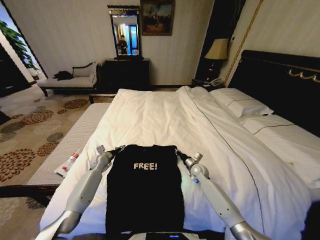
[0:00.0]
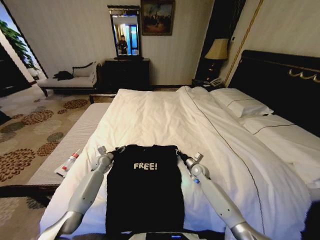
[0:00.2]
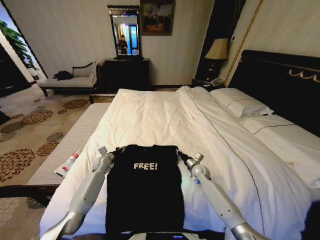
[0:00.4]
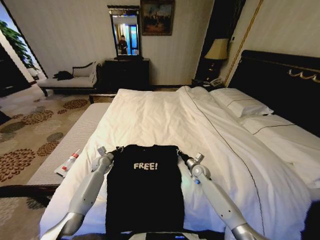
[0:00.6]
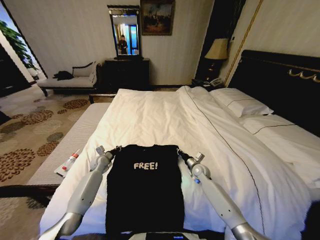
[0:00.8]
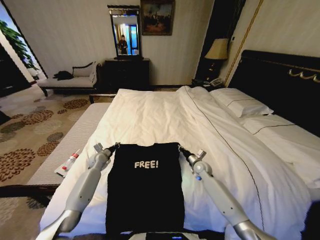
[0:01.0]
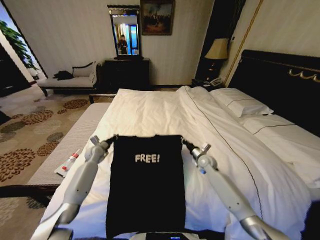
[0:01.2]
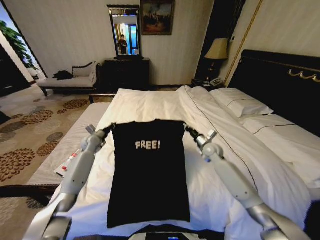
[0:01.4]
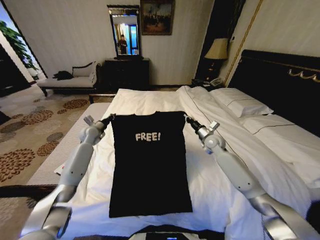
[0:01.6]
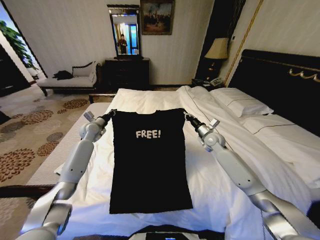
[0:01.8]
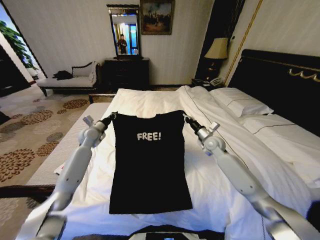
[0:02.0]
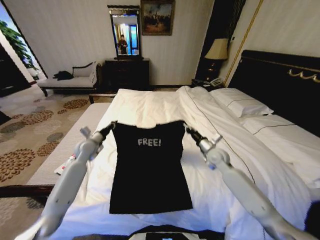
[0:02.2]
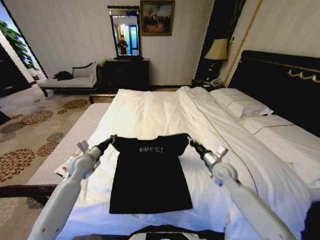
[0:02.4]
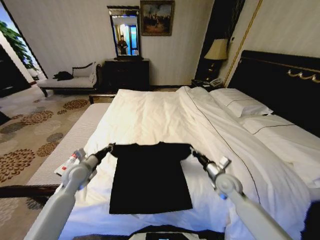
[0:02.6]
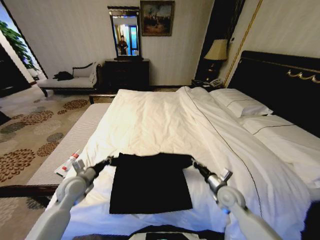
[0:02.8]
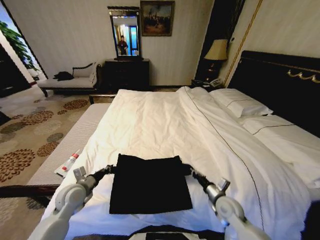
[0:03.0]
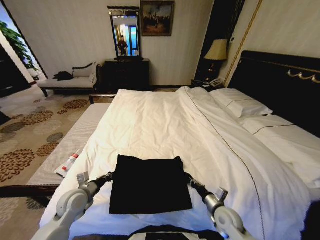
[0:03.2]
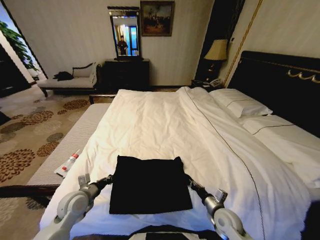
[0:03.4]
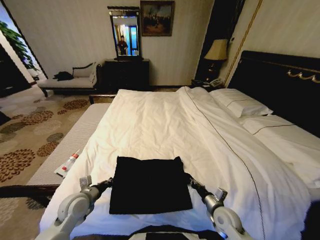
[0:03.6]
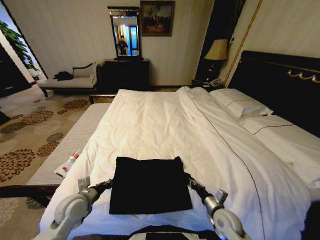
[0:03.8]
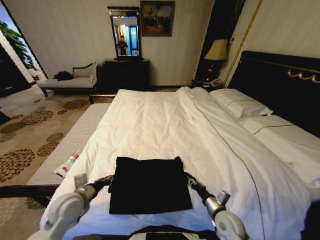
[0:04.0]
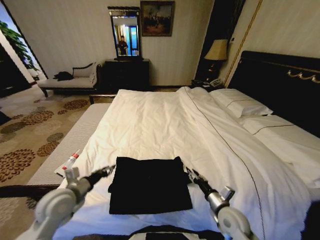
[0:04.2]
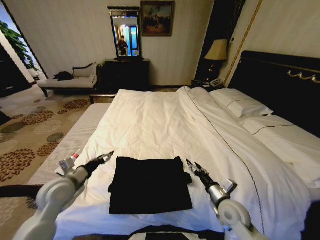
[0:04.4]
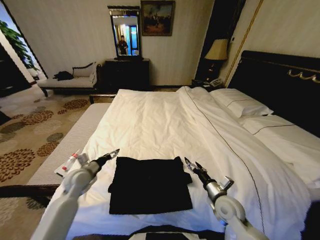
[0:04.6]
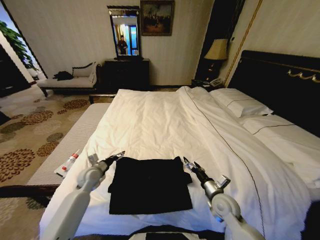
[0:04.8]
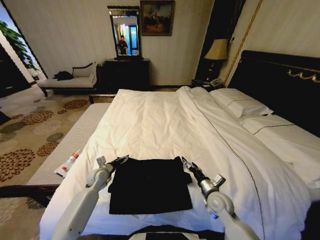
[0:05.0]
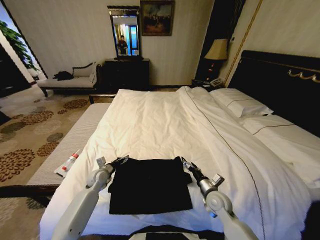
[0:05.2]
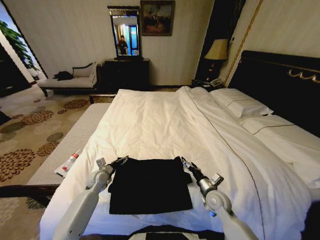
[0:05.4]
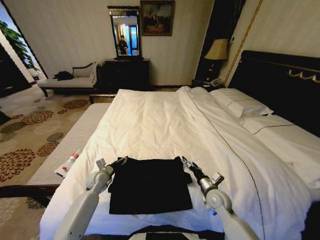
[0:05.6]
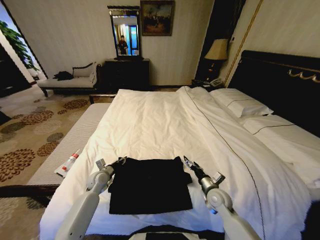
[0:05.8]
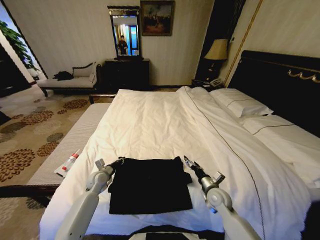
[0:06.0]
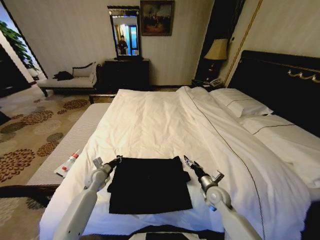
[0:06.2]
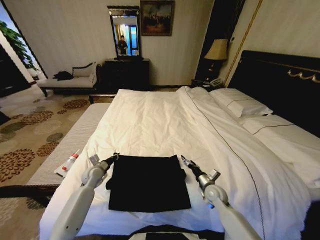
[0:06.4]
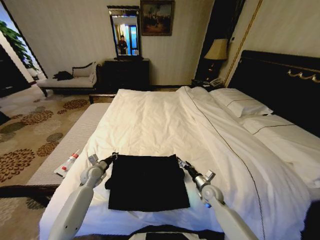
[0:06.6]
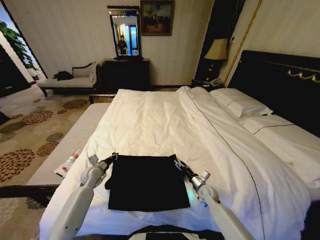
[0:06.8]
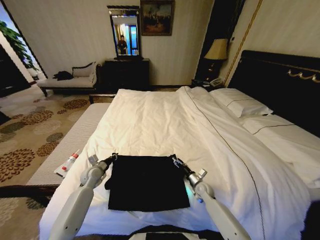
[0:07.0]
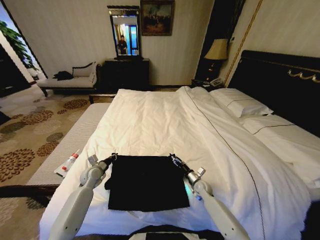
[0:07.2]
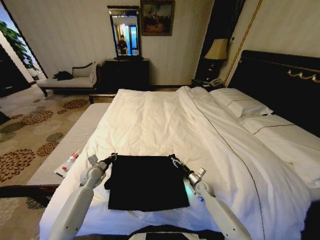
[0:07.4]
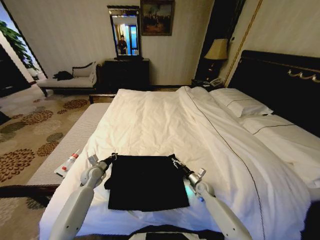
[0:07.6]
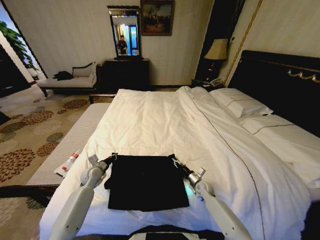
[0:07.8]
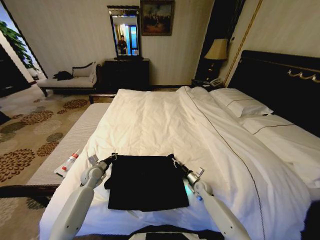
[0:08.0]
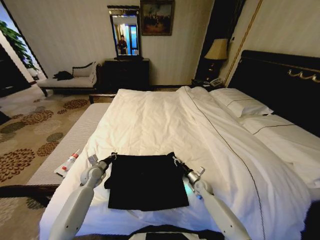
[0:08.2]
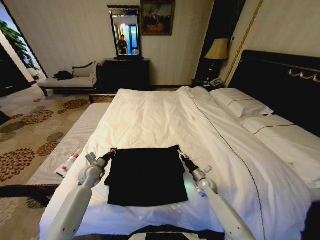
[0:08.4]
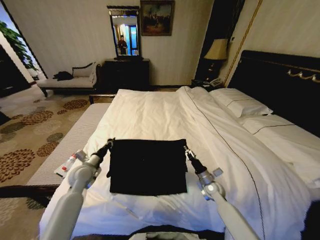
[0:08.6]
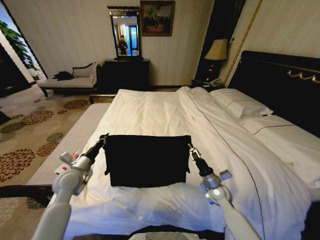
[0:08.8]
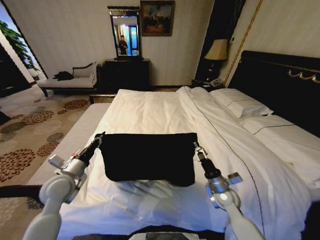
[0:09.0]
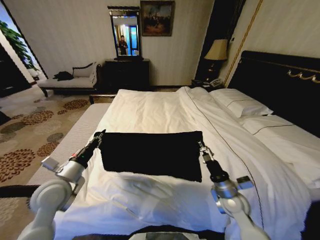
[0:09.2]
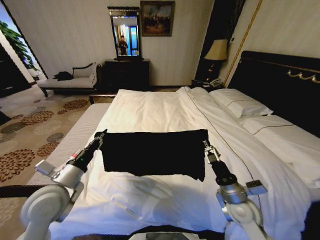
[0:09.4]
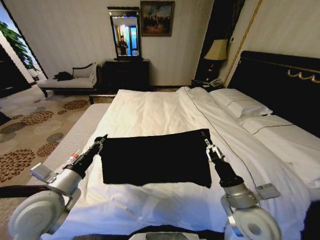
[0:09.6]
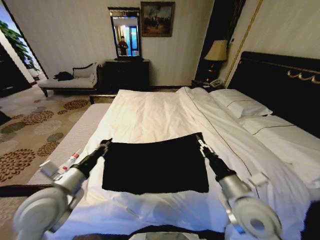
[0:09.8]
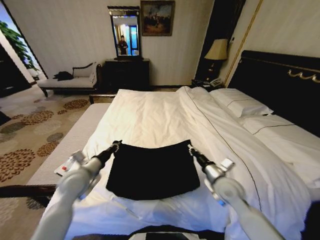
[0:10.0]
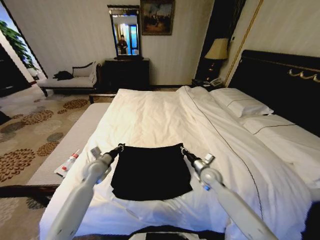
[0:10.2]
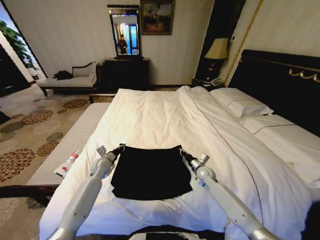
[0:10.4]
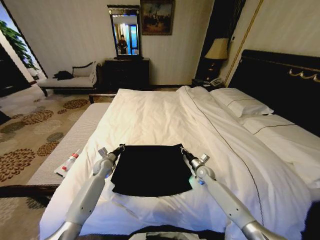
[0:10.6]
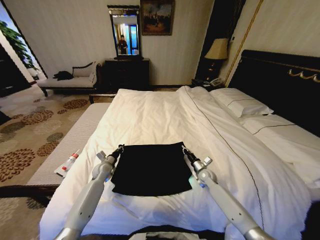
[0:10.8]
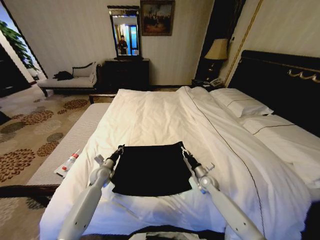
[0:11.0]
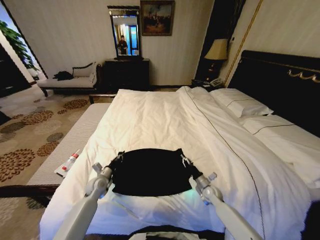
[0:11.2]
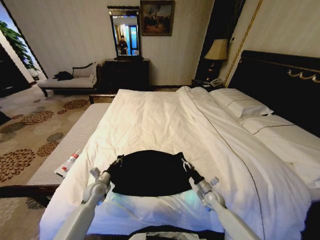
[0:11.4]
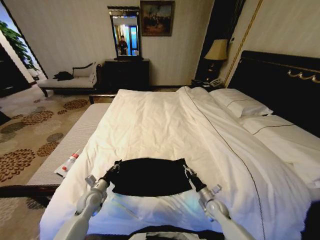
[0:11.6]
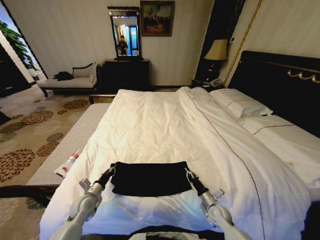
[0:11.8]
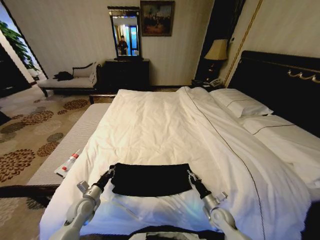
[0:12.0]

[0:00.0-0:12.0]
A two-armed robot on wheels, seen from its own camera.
Task of the whole recording: Fold the clothes on the bed.
0:00.0 to 0:01.6: The right gripper is displaced upward by about 15 cm, while the left gripper shifts some 15 cm upward and forward, and closes its fingers.
0:01.6 to 0:03.0: The right gripper goes roughly 30 cm backward and downward. Meanwhile the left gripper goes some 25 cm backward.
0:03.0 to 0:04.4: The left gripper moves upward, some 10 cm, and opens. Meanwhile the right gripper moves about 5 cm, and opens up.
0:04.4 to 0:06.0: The right gripper heads forward, covering some 5 cm; the left gripper heads downward and forward, covering some 20 cm, and closes its fingers.
0:06.0 to 0:07.6: The right gripper moves downward and forward, approximately 15 cm, and closes its fingers.
0:07.6 to 0:09.0: Both grippers move upward and backward, roughly 20 cm. The right gripper closes its fingers.
0:09.0 to 0:10.4: Both grippers move forward and downward, roughly 15 cm.
0:10.4 to 0:12.0: The right gripper travels backward and downward by approximately 20 cm. Meanwhile the left gripper is displaced backward by about 20 cm.

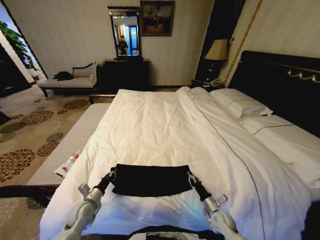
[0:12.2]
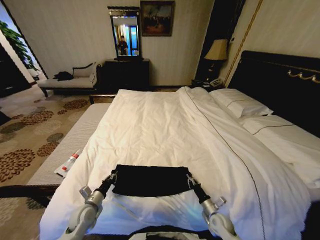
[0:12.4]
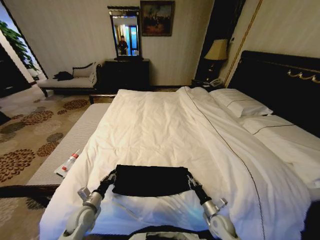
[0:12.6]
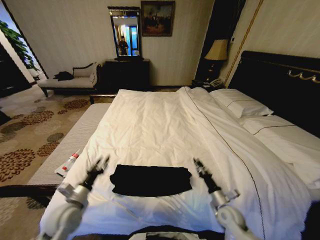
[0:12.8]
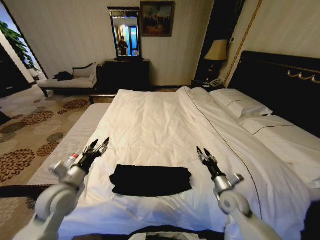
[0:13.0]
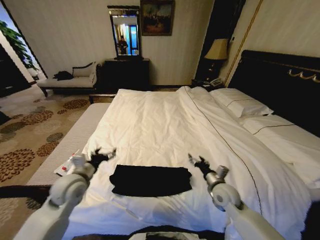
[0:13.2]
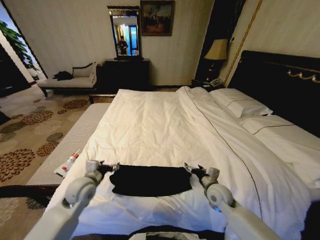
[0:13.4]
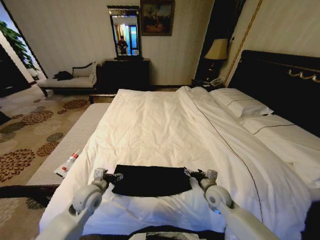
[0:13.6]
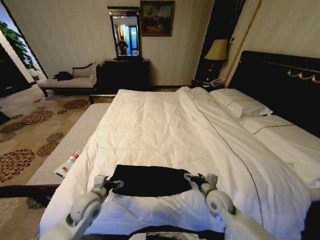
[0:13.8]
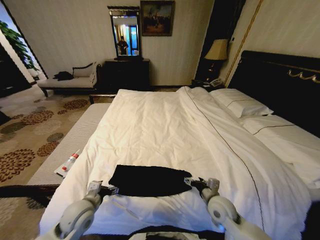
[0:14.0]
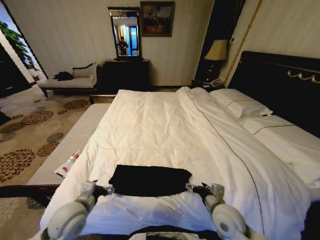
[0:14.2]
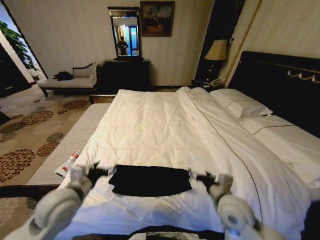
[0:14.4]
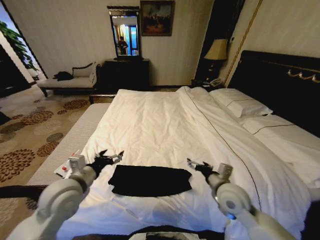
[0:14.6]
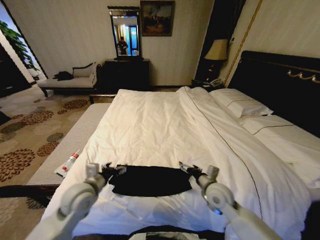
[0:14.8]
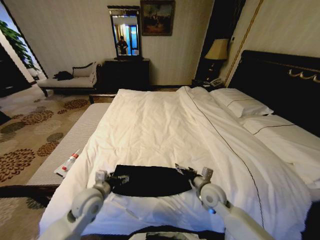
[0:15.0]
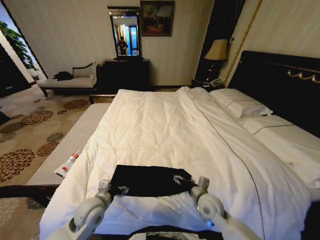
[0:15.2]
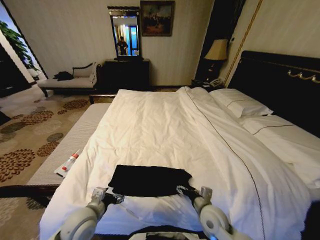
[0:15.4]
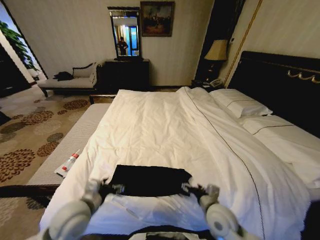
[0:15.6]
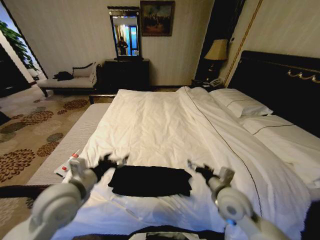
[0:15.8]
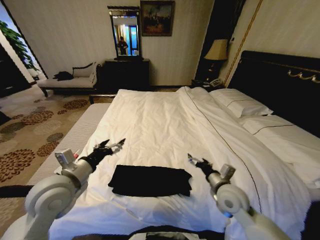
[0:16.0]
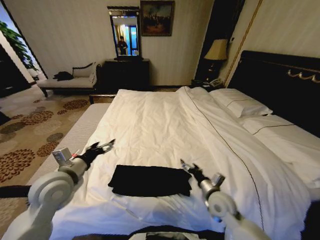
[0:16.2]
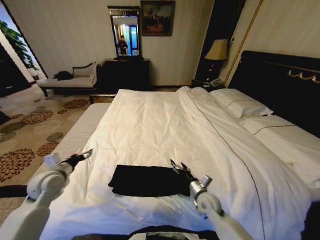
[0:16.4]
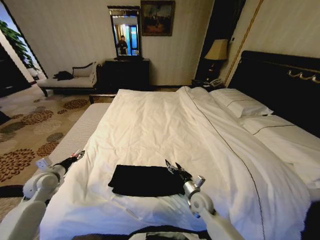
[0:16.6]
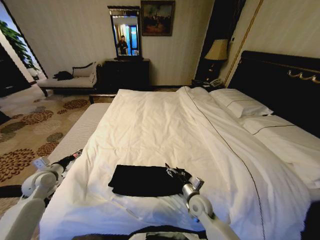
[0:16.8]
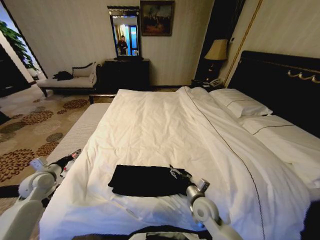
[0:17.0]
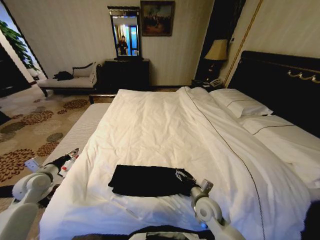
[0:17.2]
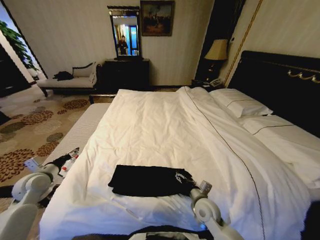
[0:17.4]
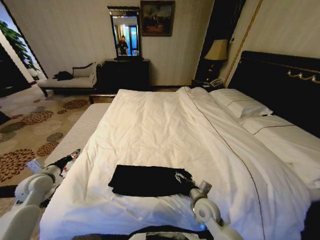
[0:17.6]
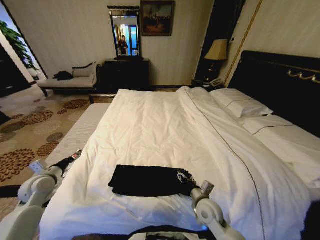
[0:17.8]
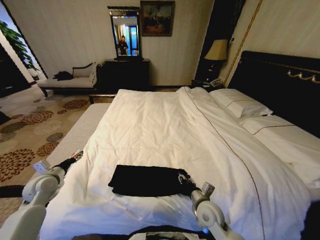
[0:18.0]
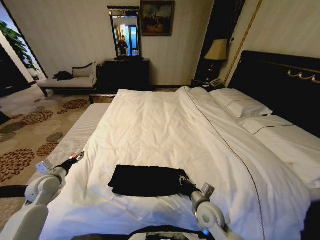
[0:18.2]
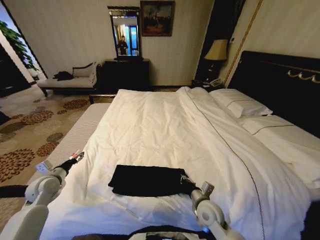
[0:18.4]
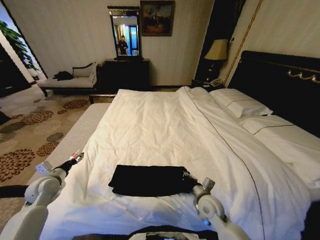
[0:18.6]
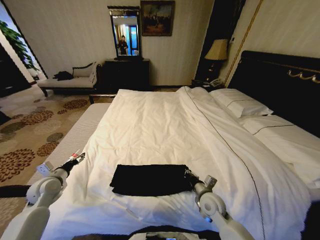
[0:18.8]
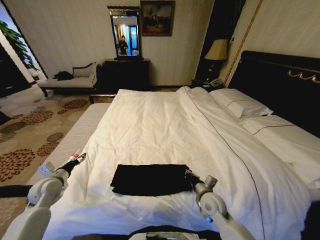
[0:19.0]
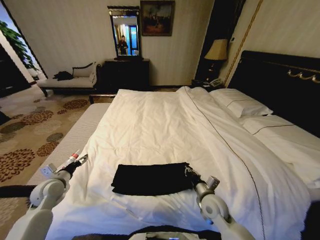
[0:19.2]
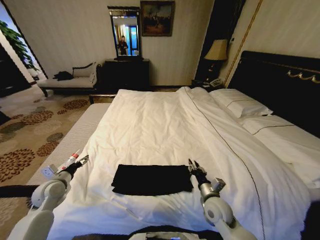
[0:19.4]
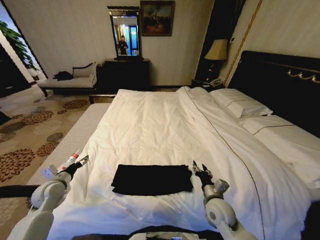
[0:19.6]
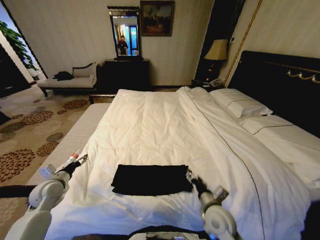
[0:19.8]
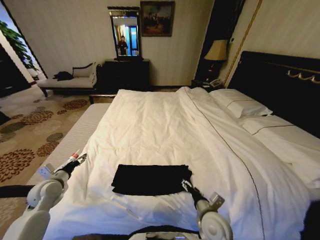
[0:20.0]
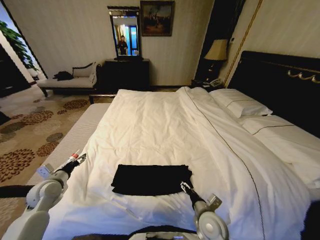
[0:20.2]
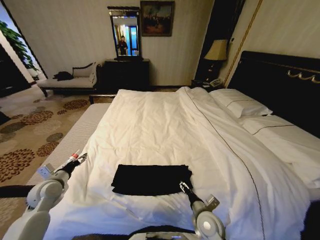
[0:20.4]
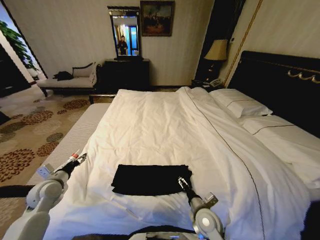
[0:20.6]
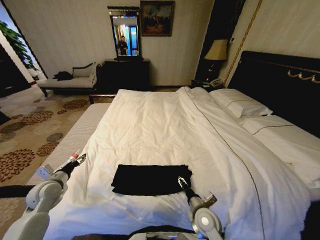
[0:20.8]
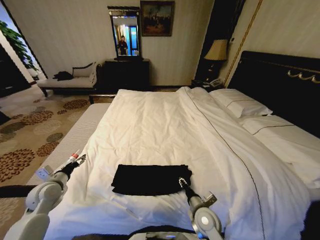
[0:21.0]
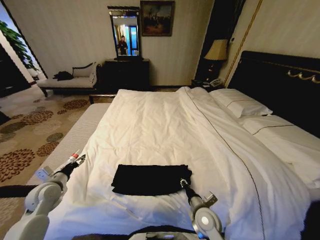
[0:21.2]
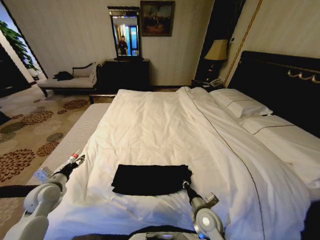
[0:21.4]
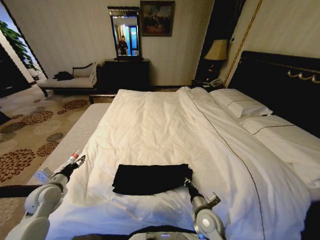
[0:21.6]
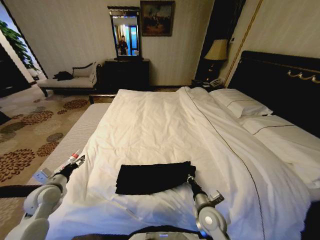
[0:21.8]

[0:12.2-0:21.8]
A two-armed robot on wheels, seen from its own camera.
Task of the whole recording: Fold the clothes on the bed.
0:12.2 to 0:13.8: The right gripper is displaced upward by about 10 cm, and opens its fingers, while the left gripper travels upward and to the right by some 10 cm, and opens up.
0:13.8 to 0:15.4: The left gripper travels upward and back again, roughly 15 cm each way. The right gripper travels backward and to the left by approximately 5 cm, and goes upward and returns, roughly 10 cm each way.
0:15.4 to 0:17.0: The left gripper shifts some 25 cm to the left and forward, while the right gripper moves up and down over roughly 15 cm, changing direction 2 times.
0:17.0 to 0:18.6: The right gripper closes its fingers.
0:18.6 to 0:20.2: The right gripper moves backward, roughly 5 cm, and opens.
0:20.2 to 0:21.8: The right gripper closes.
